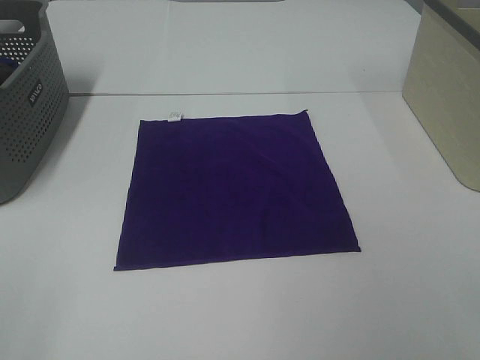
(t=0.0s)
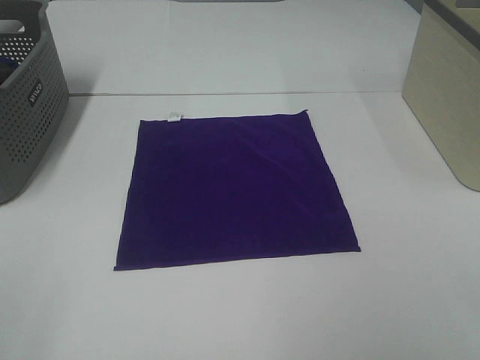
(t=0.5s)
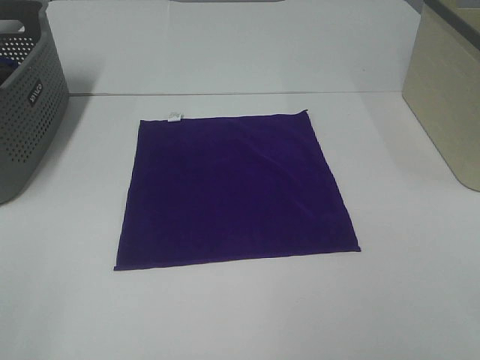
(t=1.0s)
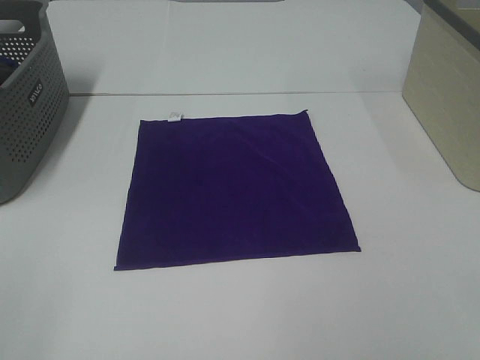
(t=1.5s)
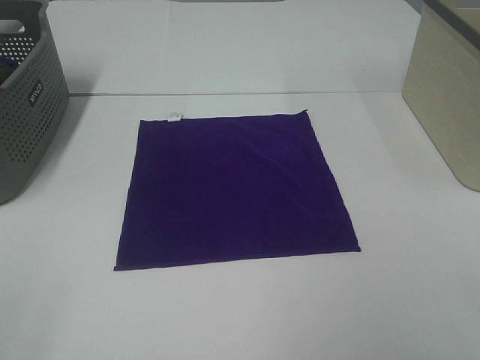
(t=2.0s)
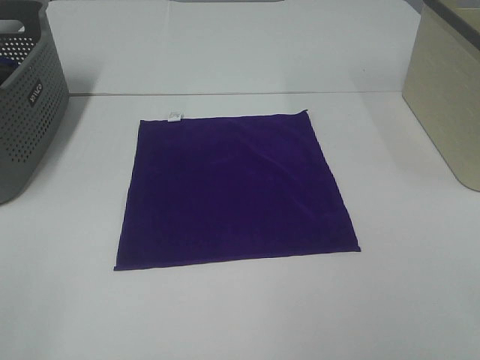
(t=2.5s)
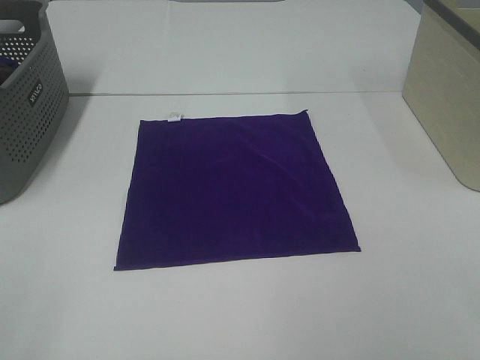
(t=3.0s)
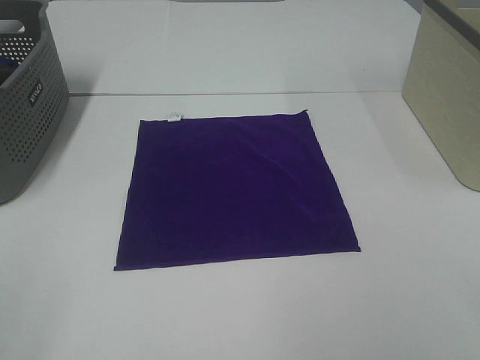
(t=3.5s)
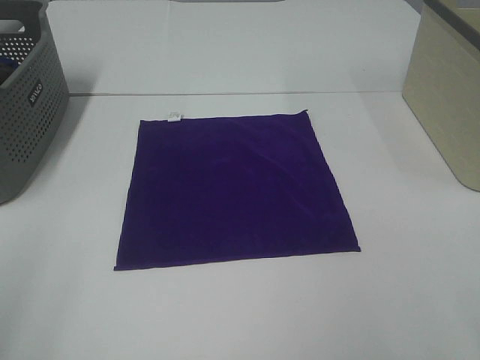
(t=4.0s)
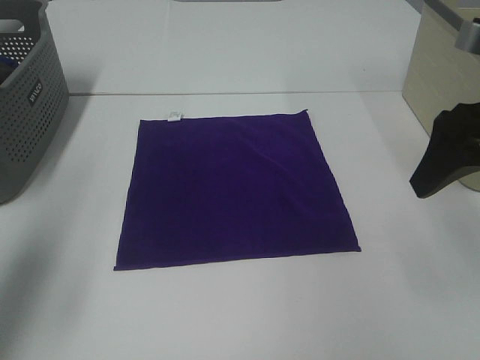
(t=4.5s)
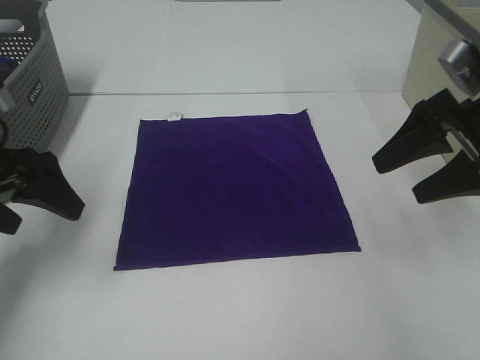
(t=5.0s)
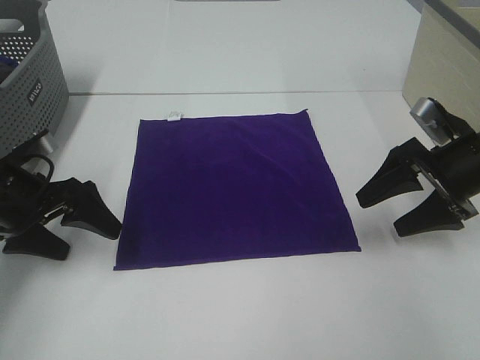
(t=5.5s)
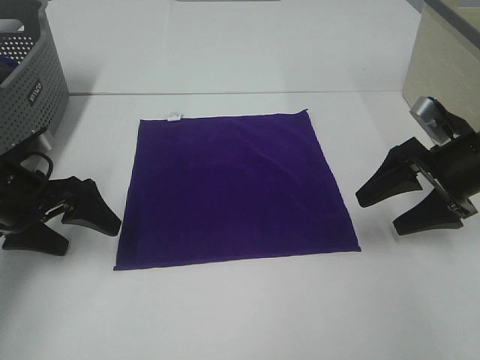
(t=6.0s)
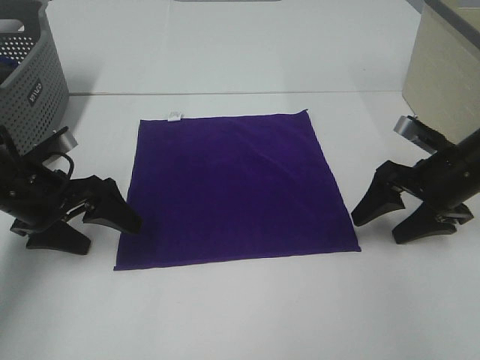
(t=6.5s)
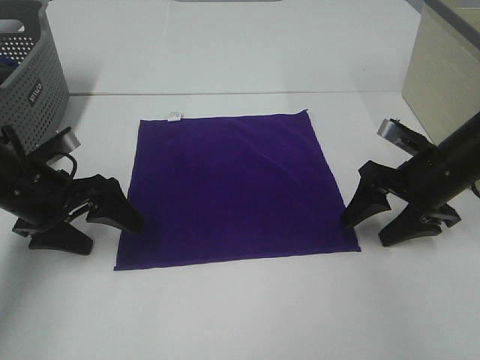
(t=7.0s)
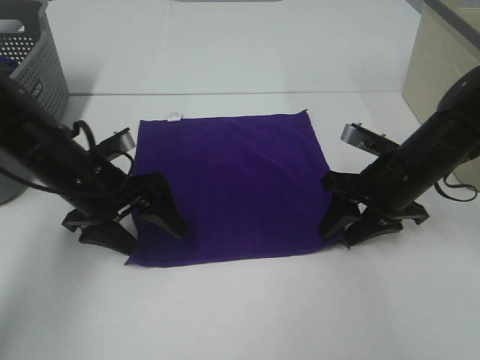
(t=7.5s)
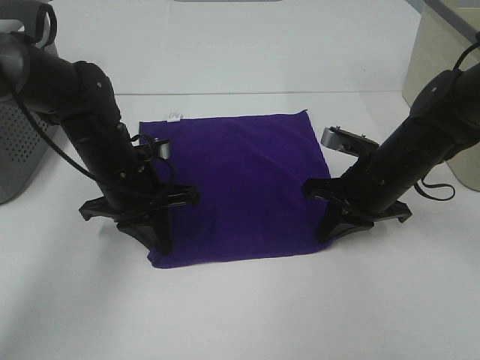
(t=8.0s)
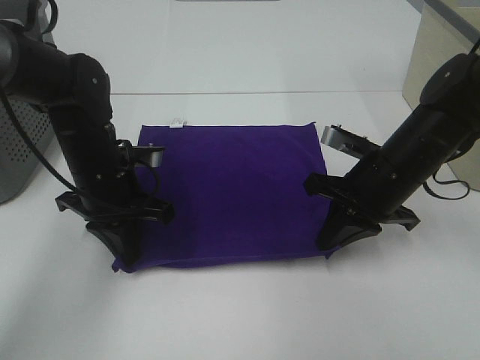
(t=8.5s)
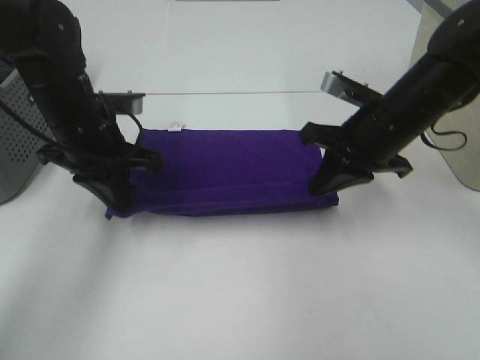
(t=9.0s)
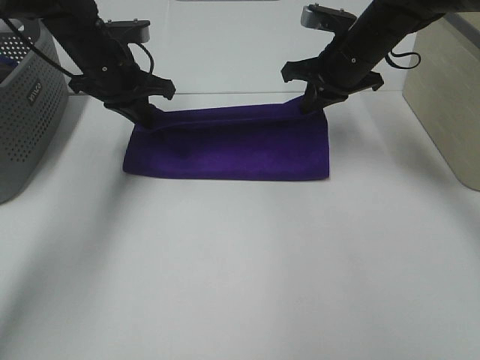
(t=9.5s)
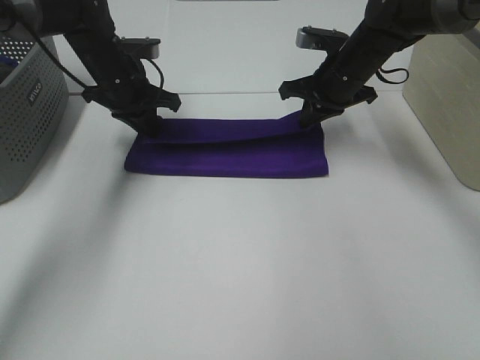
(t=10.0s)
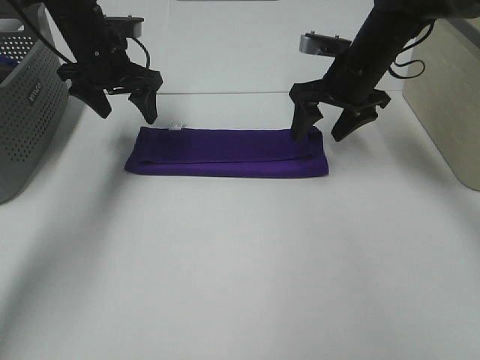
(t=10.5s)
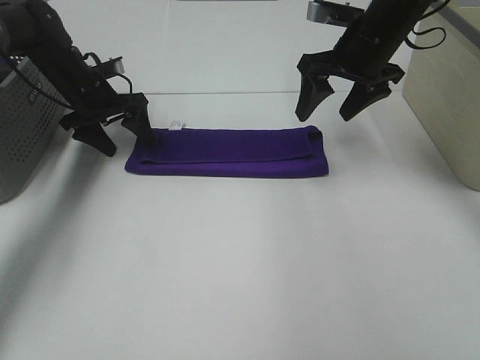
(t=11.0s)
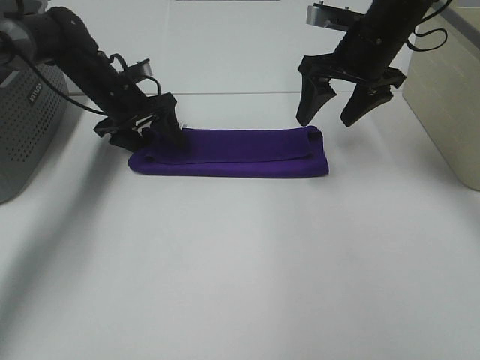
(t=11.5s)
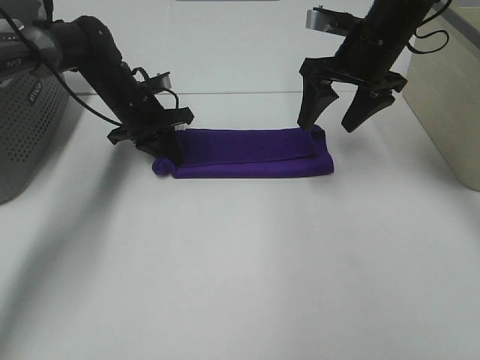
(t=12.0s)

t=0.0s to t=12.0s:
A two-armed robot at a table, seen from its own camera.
Task of the whole recording: Fold towels.
Step, t=0.0s to t=7.5s: Left hand: grab the bottom left corner of purple towel.
Step, t=0.0s to t=7.5s: Right hand: grab the bottom right corner of purple towel.
Step, t=8.0s to t=9.5s: Left hand: fold the purple towel up.
Step, t=8.0s to t=9.5s: Right hand: fold the purple towel up.
t=0.0s to t=2.0s: Both grippers stay about where they are.
t=4.0s to t=6.0s: Both grippers travel together forward and downward, about 30 cm.
t=6.0s to t=8.0s: The left gripper moves to the right, roughly 15 cm, and closes its fingers. Meanwhile the right gripper goes roughly 10 cm to the left, and closes.
t=8.0s to t=10.0s: Both grippers move forward and upward, approximately 15 cm.
t=10.0s to t=12.0s: The right gripper shifts roughly 5 cm upward, and opens, while the left gripper shifts approximately 5 cm downward, and opens and closes again.

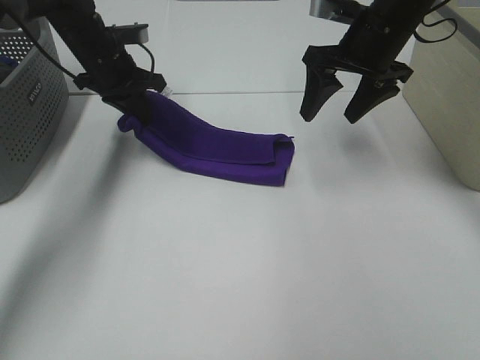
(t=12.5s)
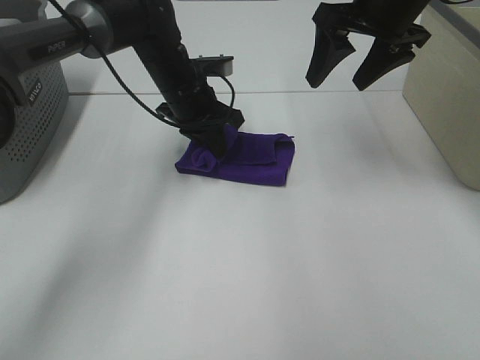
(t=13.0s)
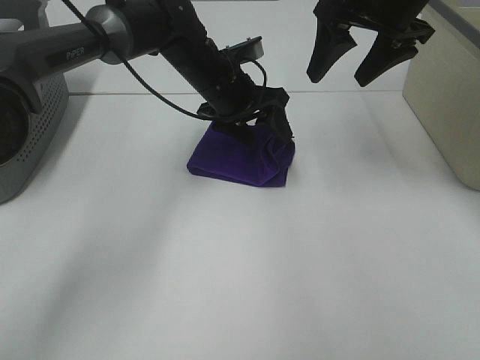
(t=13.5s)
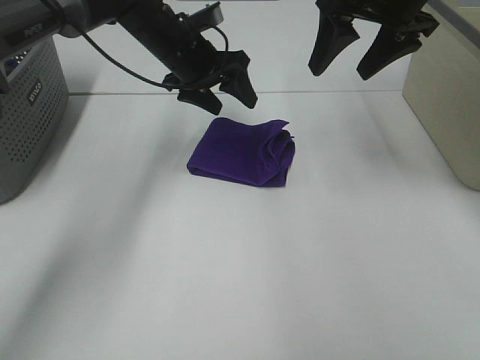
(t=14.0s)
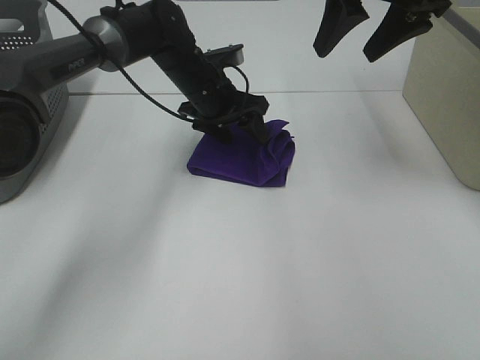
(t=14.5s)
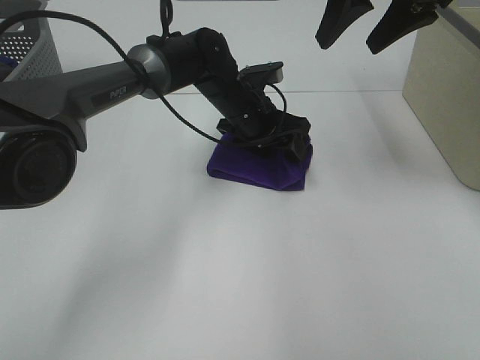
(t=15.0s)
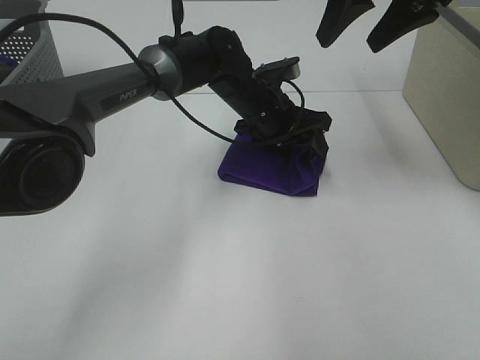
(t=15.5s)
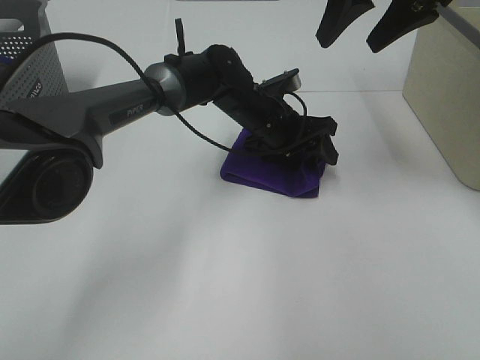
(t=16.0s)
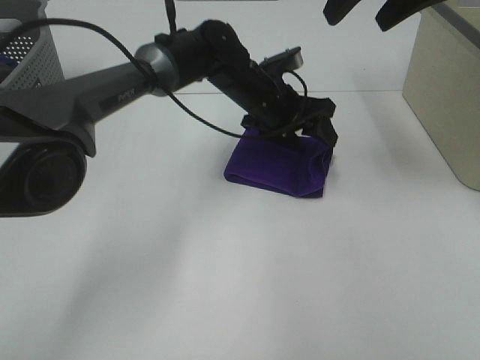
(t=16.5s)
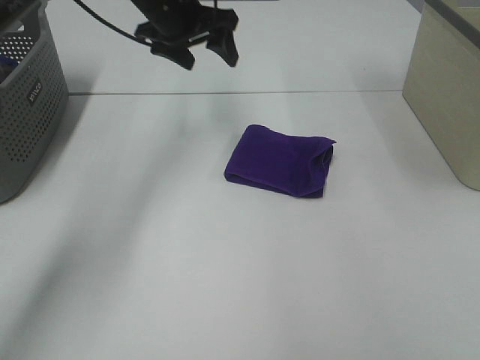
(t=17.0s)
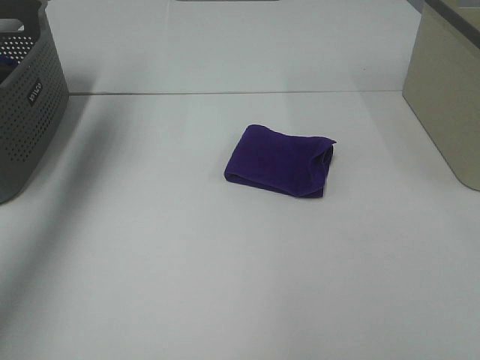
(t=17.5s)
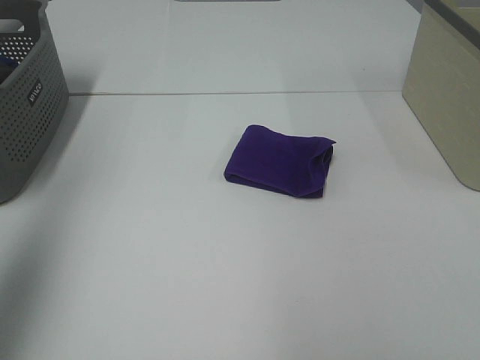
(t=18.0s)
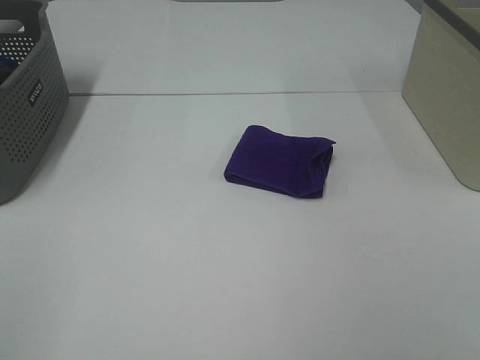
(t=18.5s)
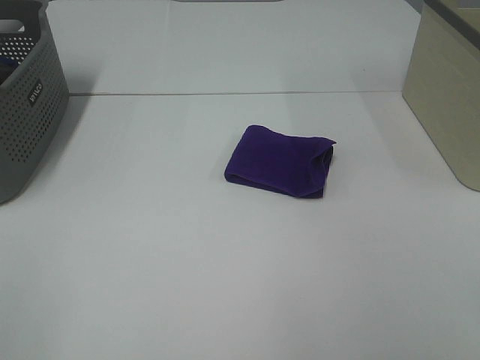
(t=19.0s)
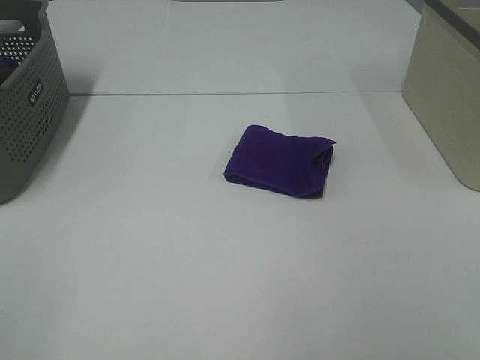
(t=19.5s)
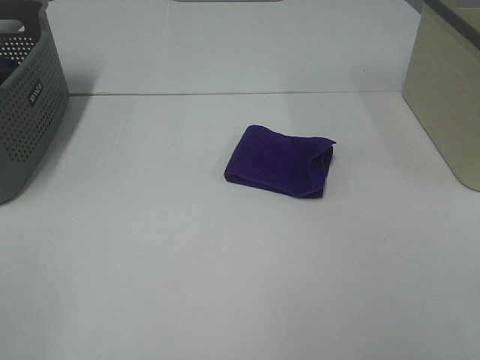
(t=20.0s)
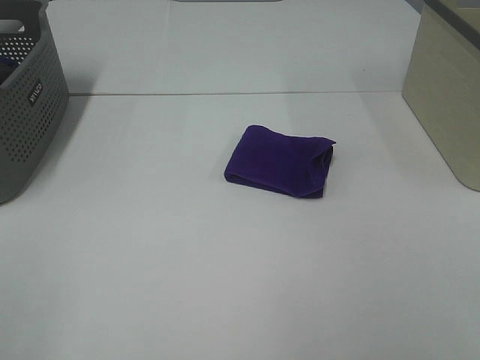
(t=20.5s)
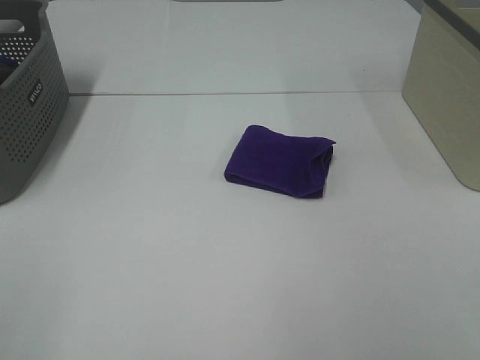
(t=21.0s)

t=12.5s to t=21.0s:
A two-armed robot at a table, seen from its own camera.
Task of the whole recording: Fold towels.
Step, t=13.5s to t=16.0s: Left hand: adjust the purple towel.
t=12.5s to t=14.5s: The left gripper travels to the right by about 15 cm, and opens up; the right gripper travels upward by about 10 cm.
t=14.5s to t=16.5s: The left gripper shifts some 5 cm to the right; the right gripper ends up about 5 cm from where it was.
t=16.5s to t=19.0s: The left gripper moves backward and to the left, about 60 cm. The right gripper is displaced backward by roughly 35 cm.

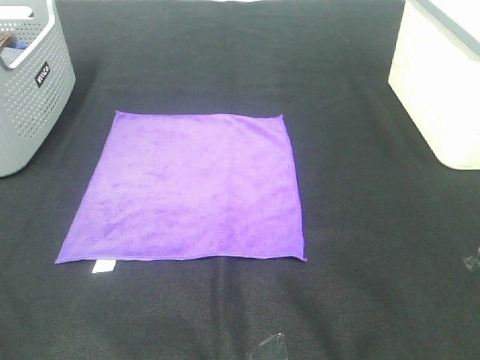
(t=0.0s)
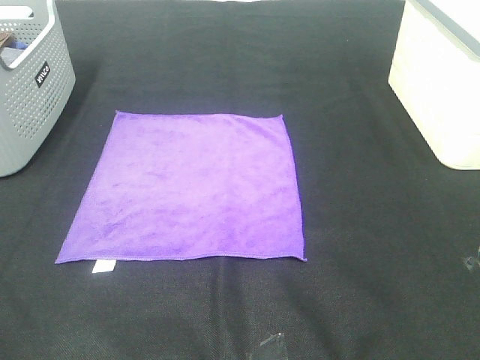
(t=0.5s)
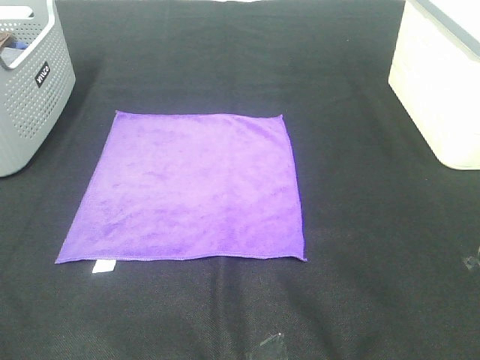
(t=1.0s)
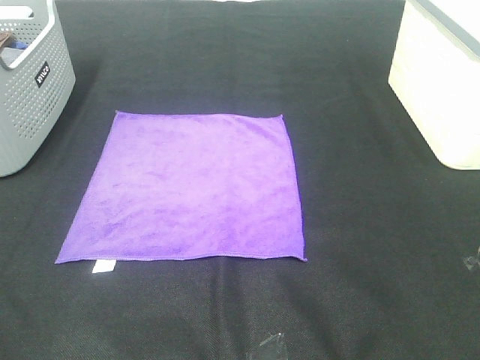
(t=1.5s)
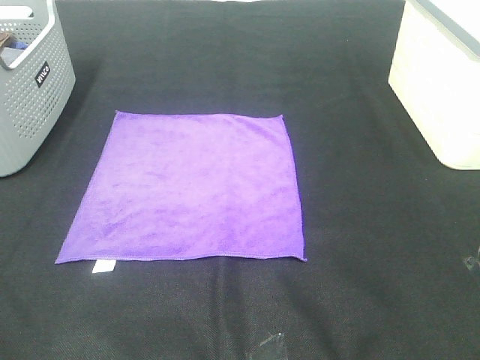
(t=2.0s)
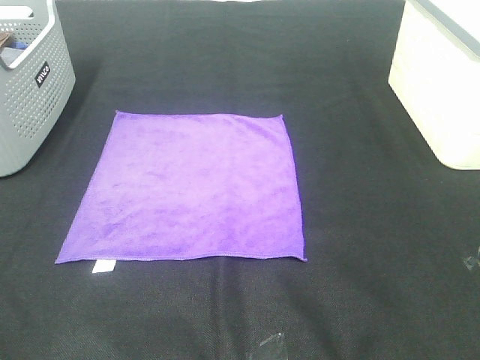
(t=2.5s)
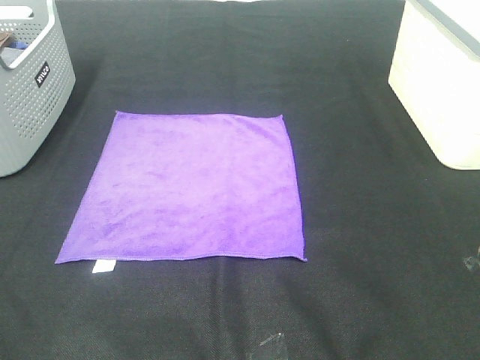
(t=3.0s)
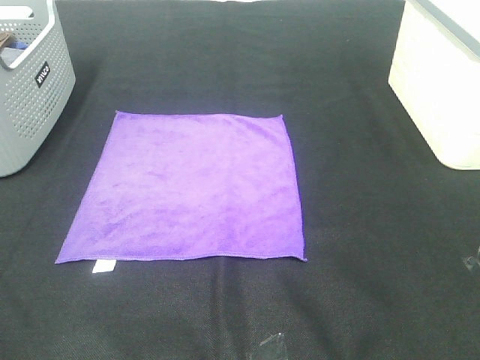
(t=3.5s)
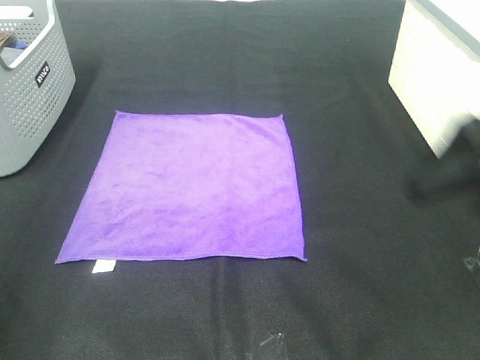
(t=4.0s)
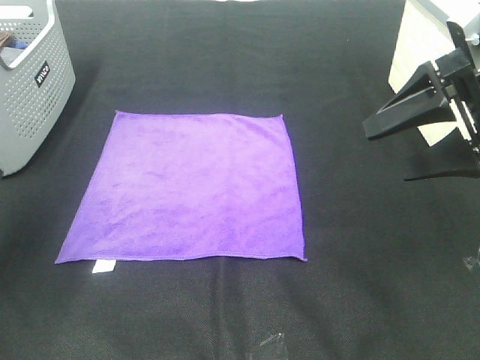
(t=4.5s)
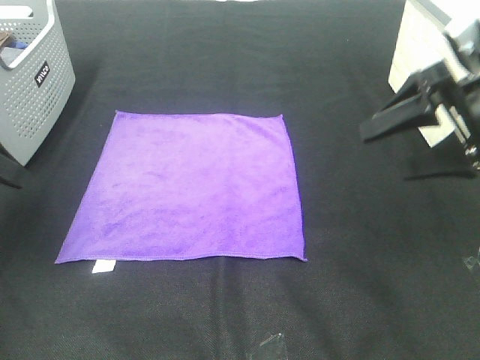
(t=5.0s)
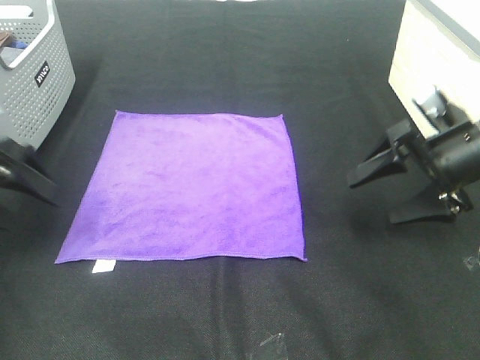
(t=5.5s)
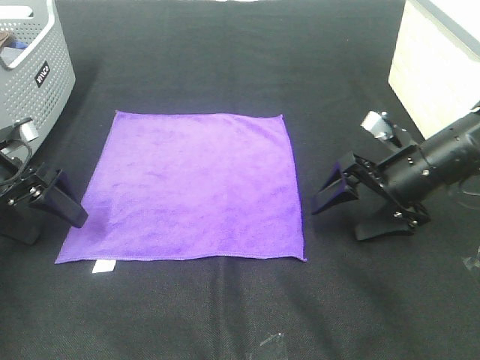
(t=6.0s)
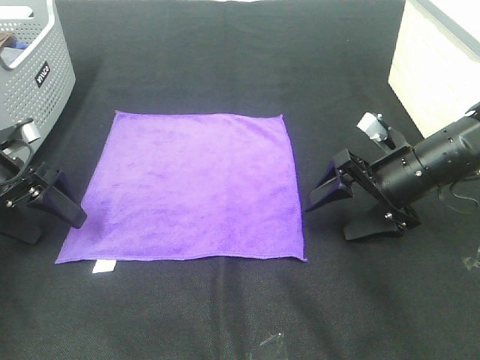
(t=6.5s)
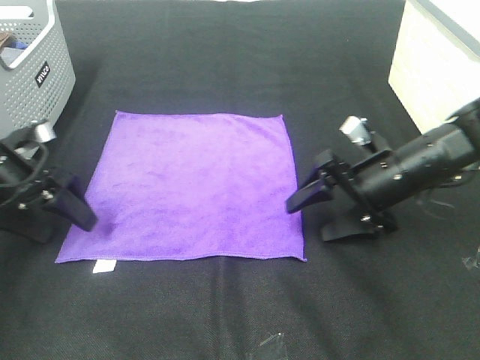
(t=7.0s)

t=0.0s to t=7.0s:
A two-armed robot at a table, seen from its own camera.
Task of the whole recording: Fold towels.
t=0.0s to t=2.0s: Both grippers stay put.
t=3.5s to t=5.0s: Both grippers move forward, approximately 30 cm.
t=5.0s to t=7.0s: The right gripper travels downward and to the left by roughly 15 cm. Meanwhile the left gripper heads downward and to the right, covering roughly 10 cm.
